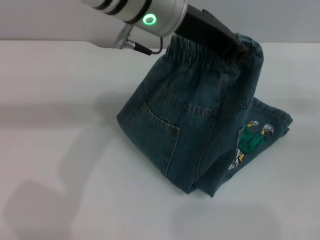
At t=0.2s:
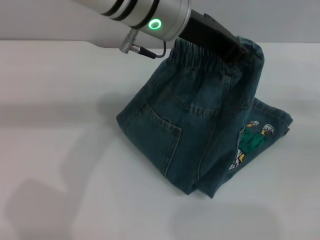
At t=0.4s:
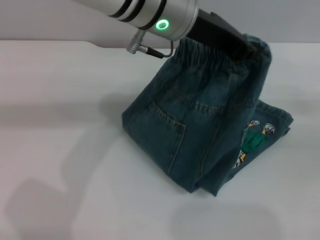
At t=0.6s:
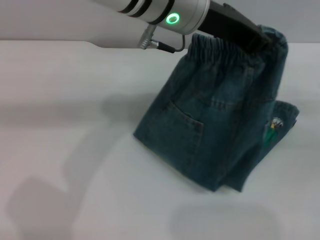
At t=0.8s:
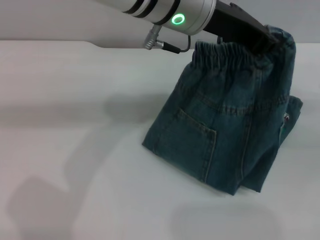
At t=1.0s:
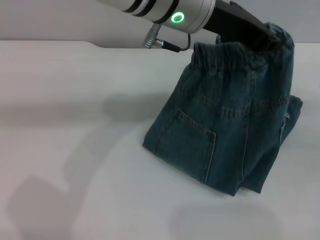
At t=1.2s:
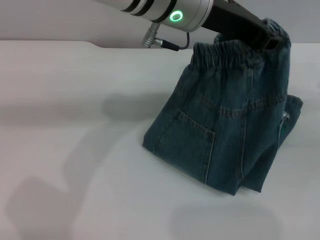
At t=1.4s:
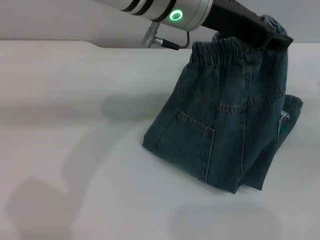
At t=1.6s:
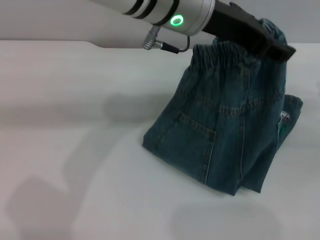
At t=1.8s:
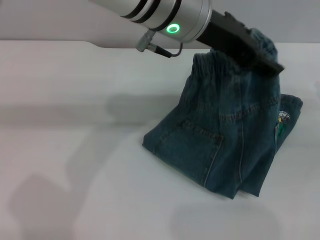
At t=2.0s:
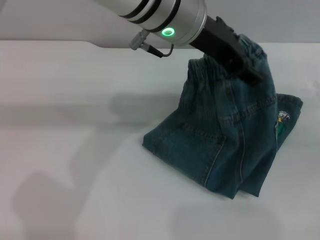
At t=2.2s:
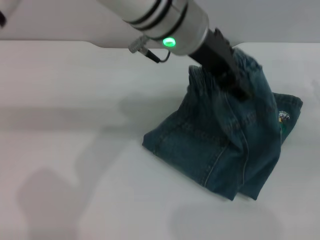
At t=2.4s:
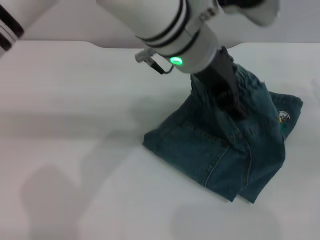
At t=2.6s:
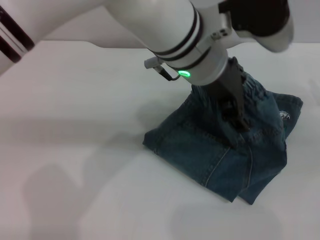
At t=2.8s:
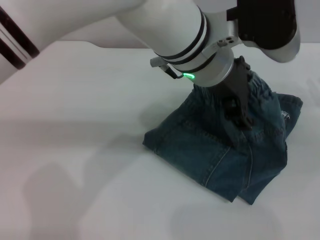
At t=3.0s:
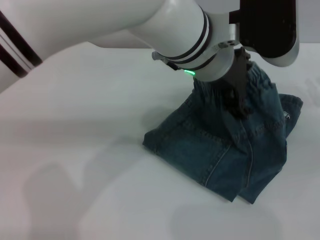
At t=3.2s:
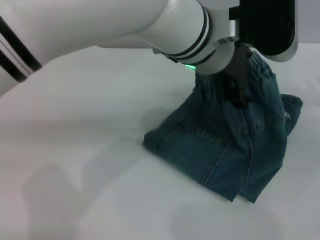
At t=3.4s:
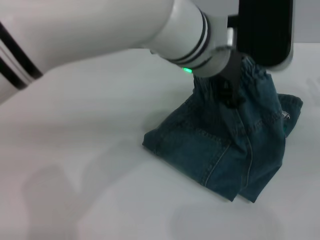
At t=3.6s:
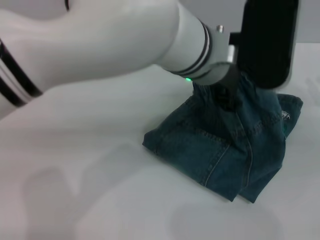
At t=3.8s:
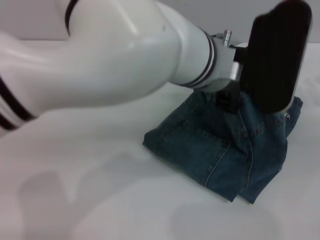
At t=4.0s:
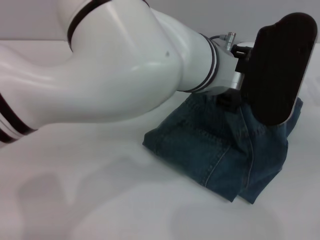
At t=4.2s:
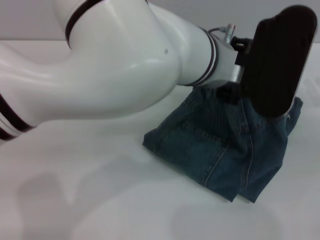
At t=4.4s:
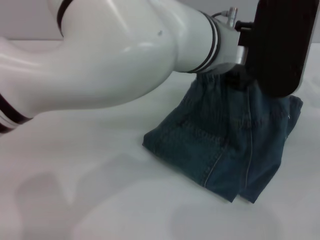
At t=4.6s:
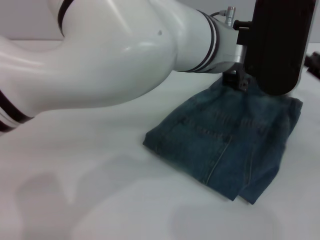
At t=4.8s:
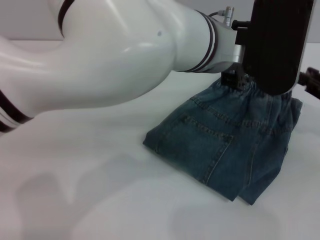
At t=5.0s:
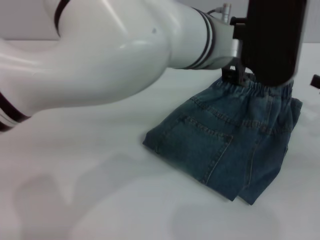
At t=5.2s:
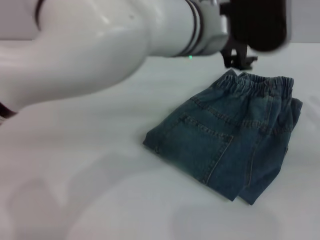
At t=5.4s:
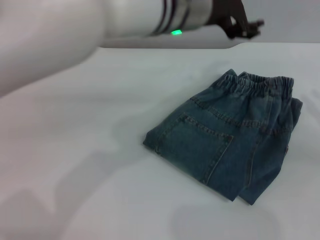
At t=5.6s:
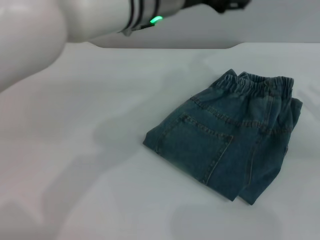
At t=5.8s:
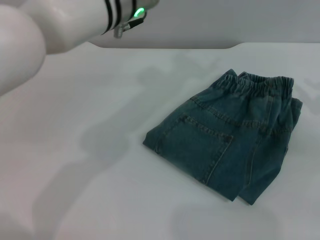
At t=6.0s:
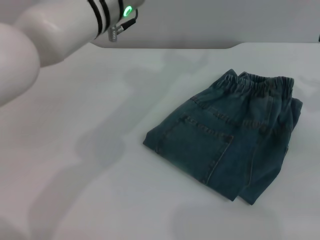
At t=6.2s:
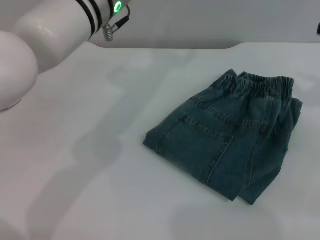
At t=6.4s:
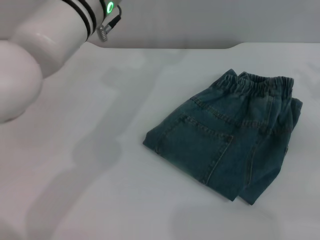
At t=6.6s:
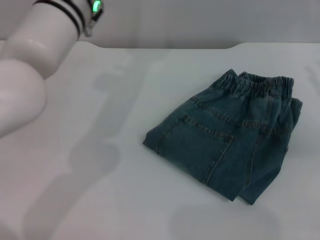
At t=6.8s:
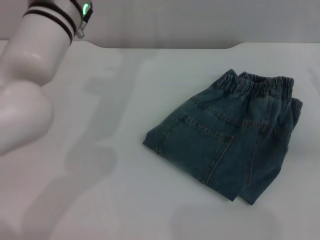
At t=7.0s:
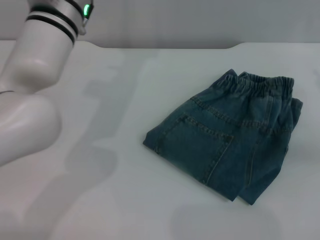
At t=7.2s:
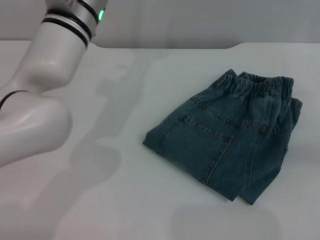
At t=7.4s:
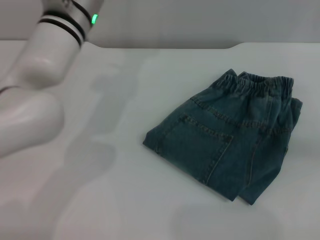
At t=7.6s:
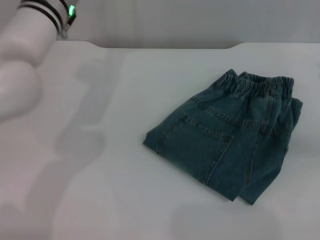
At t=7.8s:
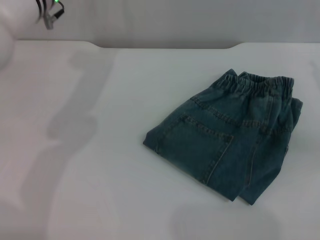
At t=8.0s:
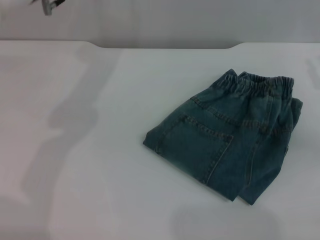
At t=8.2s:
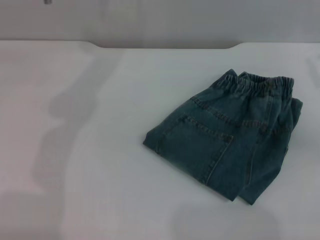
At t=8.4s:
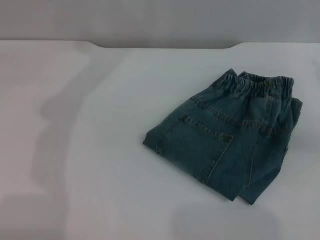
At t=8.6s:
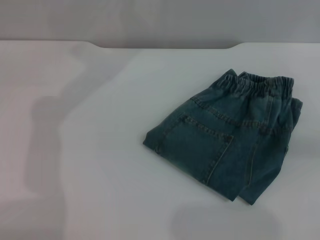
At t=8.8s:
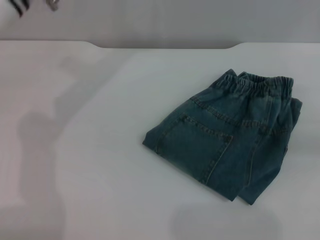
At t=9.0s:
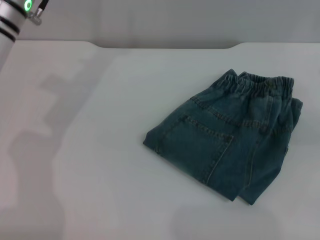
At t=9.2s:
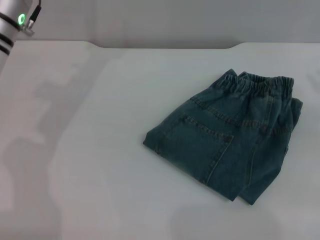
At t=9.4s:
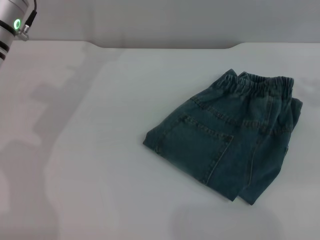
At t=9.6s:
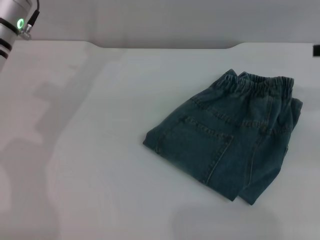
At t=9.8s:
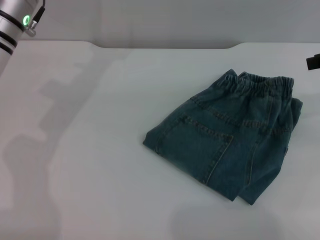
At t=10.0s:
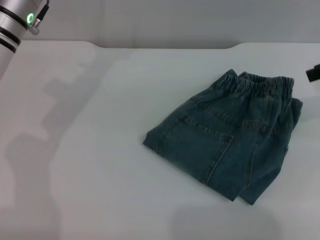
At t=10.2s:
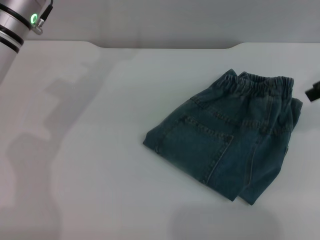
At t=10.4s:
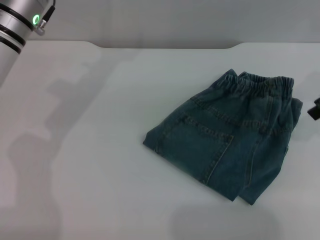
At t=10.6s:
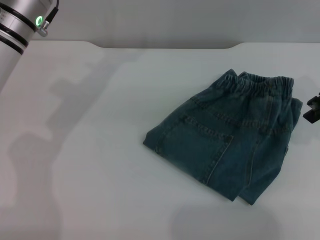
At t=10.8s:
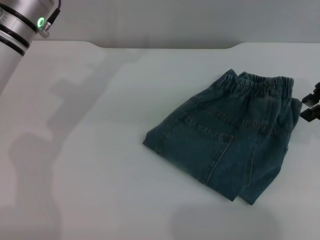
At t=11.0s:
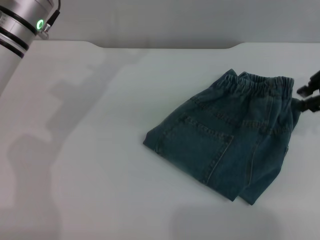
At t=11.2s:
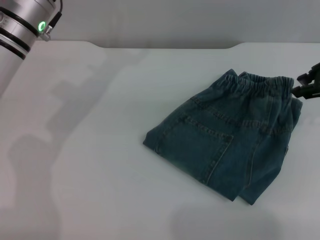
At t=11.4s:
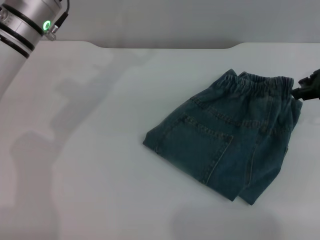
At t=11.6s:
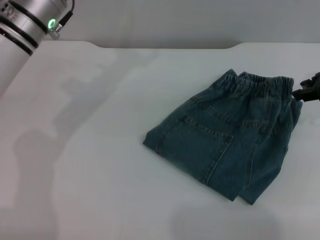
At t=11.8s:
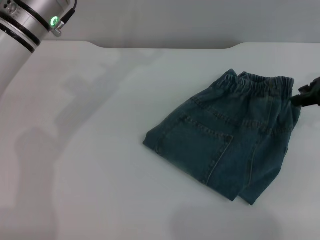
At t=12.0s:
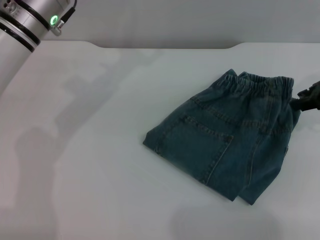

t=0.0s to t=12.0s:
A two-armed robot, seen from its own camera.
Step, t=0.0s to t=4.6s: Fold the pants from left to right with the left gripper.
t=0.0s to t=1.6s: The left gripper opens its fingers.
t=1.6s to t=3.0s: The left gripper shifts by roughly 5 cm, and opens up.
t=4.4s to t=6.0s: The right gripper travels upward by about 5 cm, while the left gripper shifts roughly 10 cm to the left and forward.
t=6.0s to t=7.6s: The left gripper heads to the left and forward, covering roughly 10 cm.
t=7.6s to t=9.0s: The left gripper travels to the left by roughly 5 cm.
t=10.4s to t=12.0s: The right gripper moves downward, approximately 5 cm.

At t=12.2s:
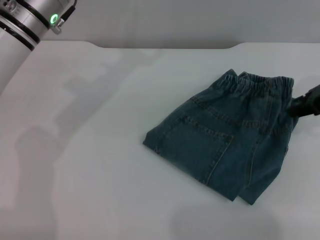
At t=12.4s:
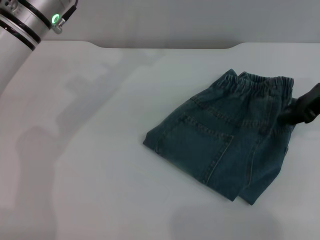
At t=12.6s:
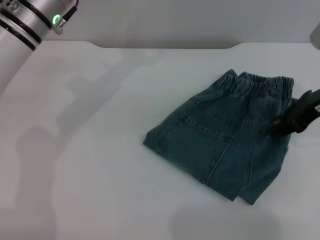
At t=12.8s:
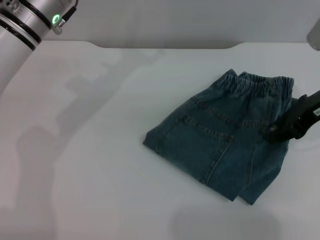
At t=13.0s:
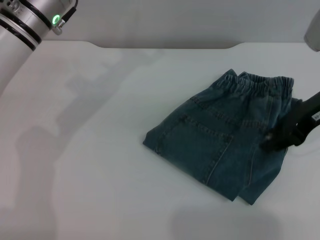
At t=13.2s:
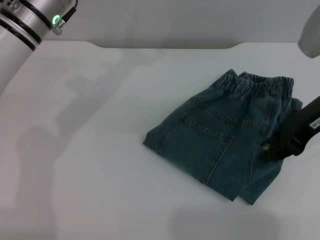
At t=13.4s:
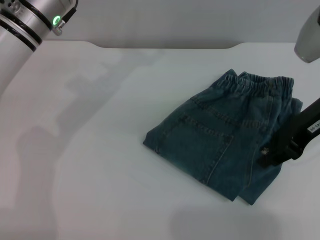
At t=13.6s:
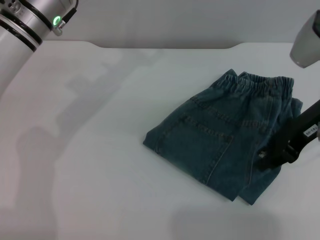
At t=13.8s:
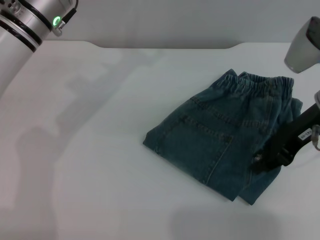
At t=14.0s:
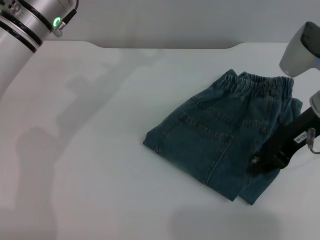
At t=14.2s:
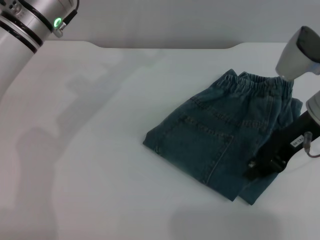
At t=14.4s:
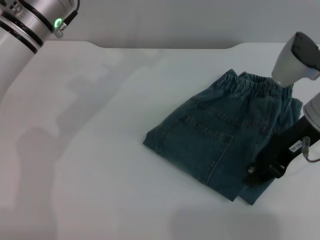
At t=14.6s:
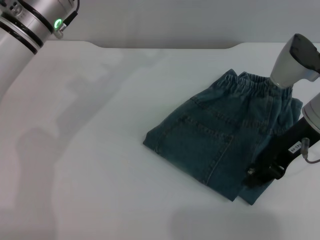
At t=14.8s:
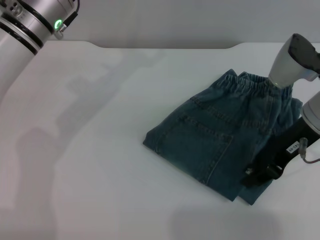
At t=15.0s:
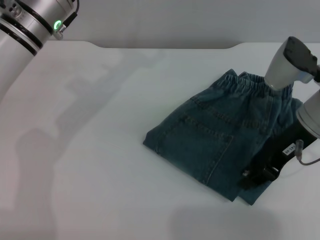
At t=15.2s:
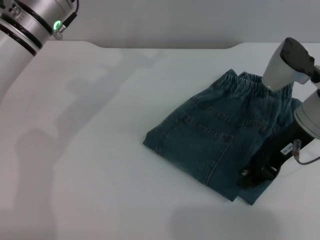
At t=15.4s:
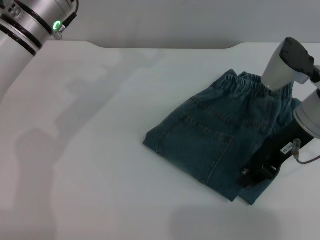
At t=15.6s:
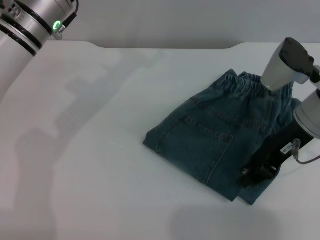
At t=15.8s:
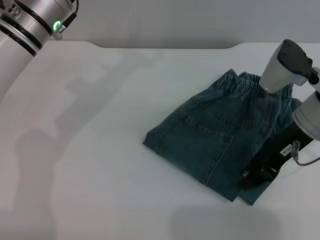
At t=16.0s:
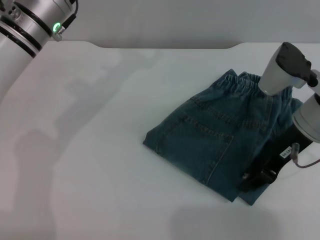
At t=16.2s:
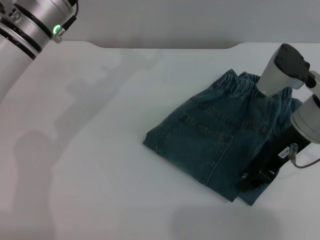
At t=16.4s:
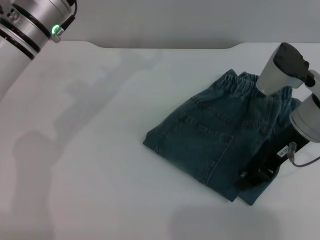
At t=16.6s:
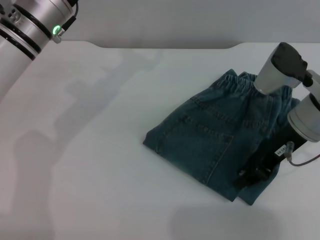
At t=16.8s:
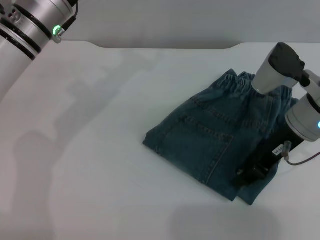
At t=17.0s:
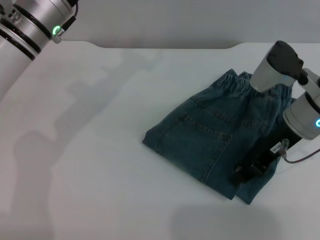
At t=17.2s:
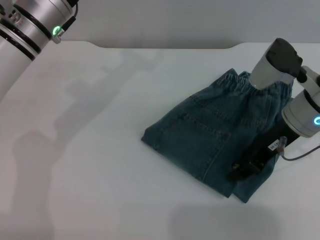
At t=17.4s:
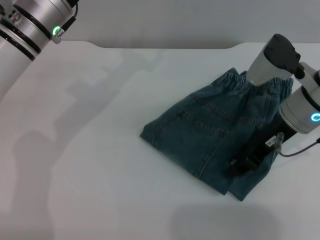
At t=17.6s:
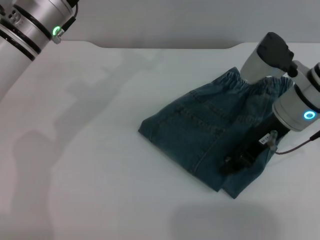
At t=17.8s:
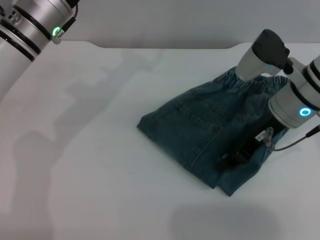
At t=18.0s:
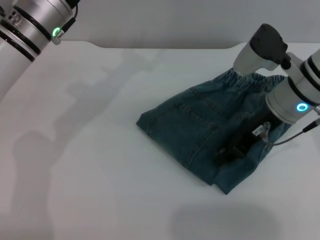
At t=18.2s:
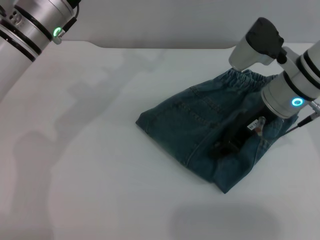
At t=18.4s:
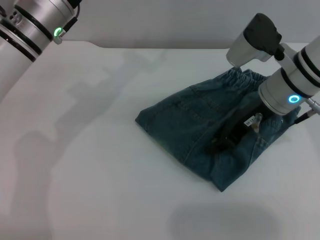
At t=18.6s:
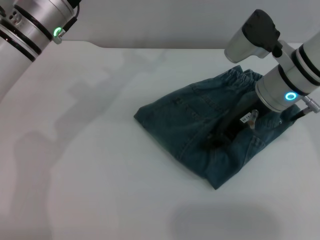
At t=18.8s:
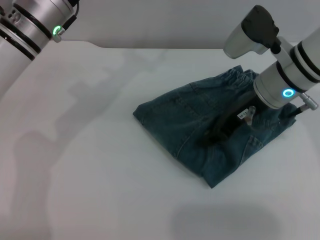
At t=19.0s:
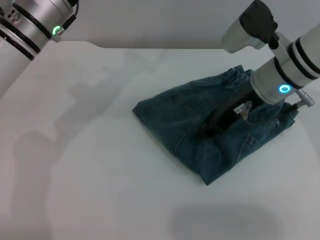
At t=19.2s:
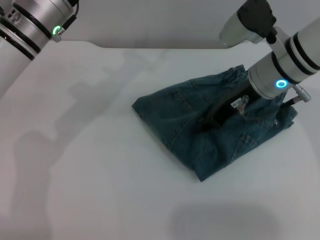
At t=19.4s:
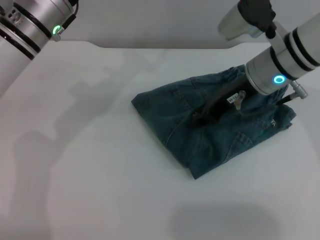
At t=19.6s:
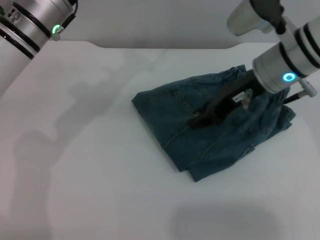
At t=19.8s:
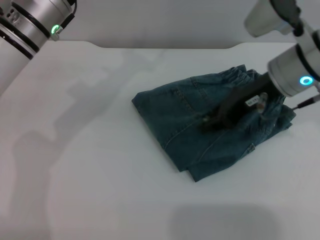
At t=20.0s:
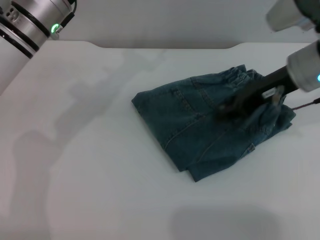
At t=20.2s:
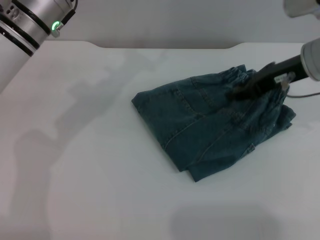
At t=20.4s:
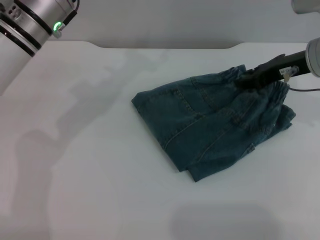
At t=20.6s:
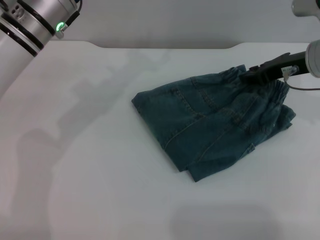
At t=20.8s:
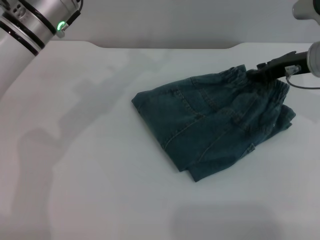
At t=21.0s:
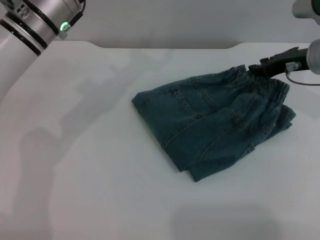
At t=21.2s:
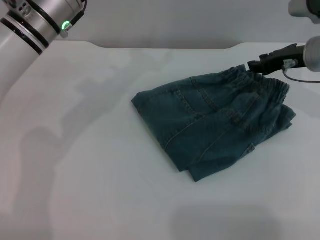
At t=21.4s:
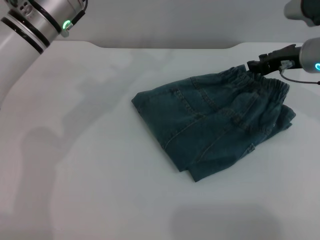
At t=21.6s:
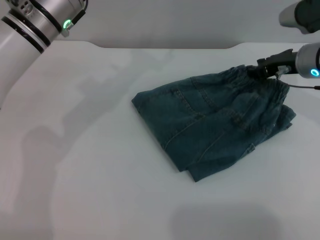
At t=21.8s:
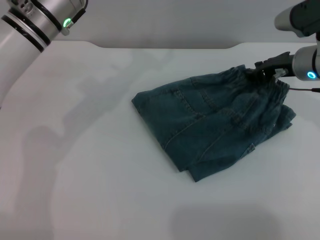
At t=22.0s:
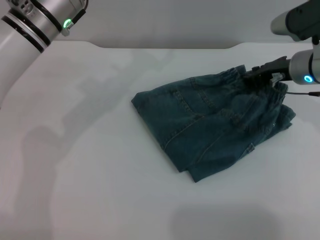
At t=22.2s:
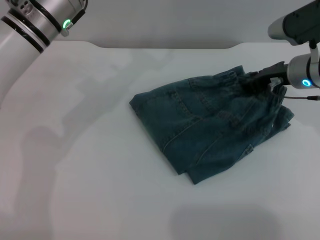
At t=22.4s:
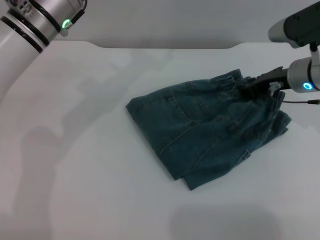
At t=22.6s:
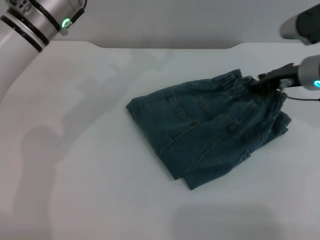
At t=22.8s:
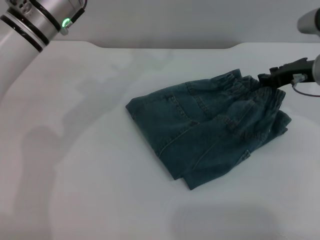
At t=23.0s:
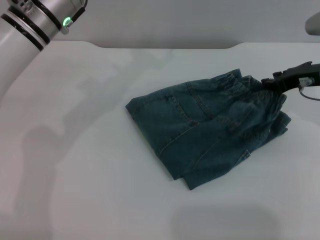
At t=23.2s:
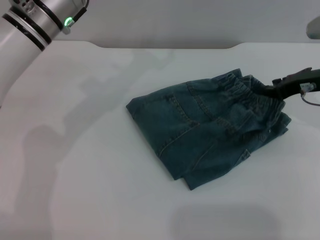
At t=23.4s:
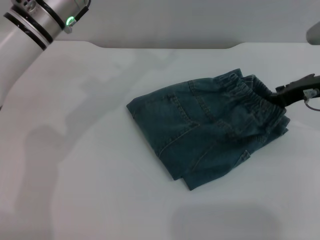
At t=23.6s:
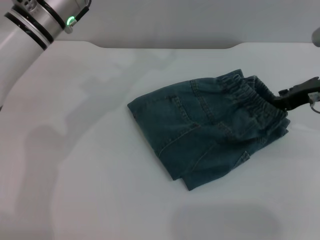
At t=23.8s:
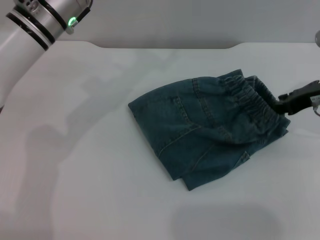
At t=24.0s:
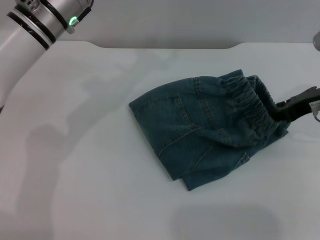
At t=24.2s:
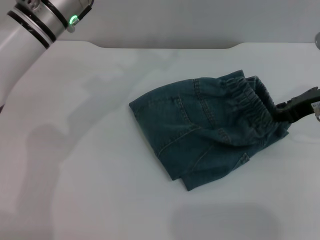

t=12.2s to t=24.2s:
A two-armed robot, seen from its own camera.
t=12.2s to t=13.8s: The right gripper goes roughly 5 cm to the left.
t=13.8s to t=15.2s: The grippers stay close to where they were, moving slightly.
t=15.2s to t=16.6s: Both grippers stay about where they are.
t=16.6s to t=18.2s: There are only small adjustments of the grippers.
t=18.2s to t=19.8s: There are only small adjustments of the grippers.
t=19.8s to t=21.2s: The right gripper travels to the right by approximately 5 cm.
t=21.2s to t=22.6s: The grippers make only small movements.
t=22.6s to t=24.2s: The right gripper is displaced backward by some 5 cm.
